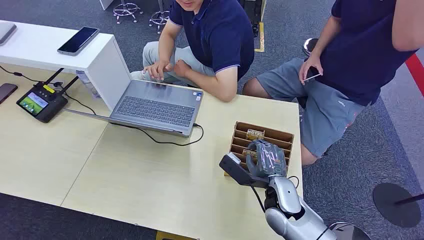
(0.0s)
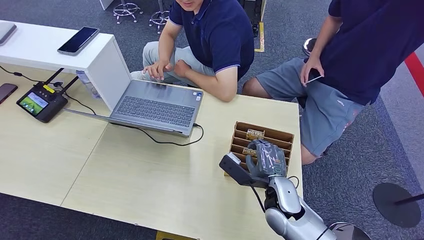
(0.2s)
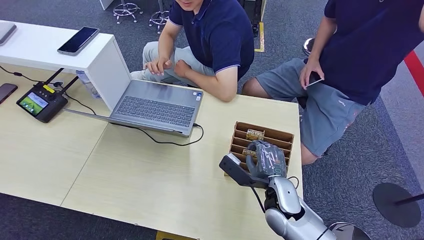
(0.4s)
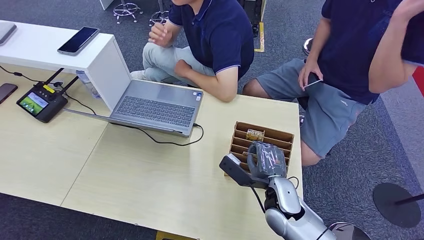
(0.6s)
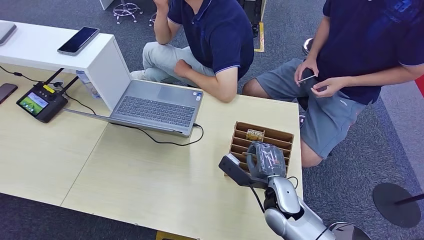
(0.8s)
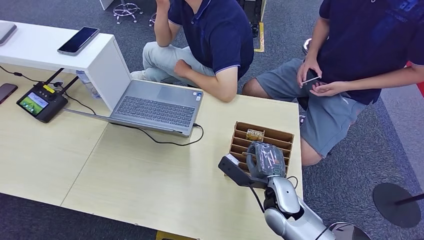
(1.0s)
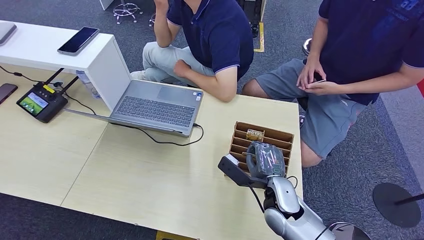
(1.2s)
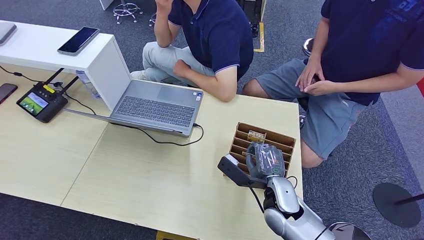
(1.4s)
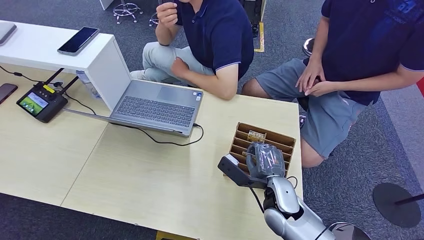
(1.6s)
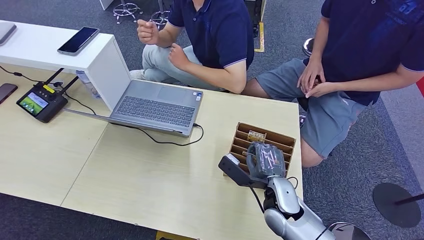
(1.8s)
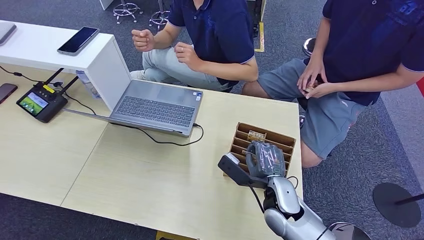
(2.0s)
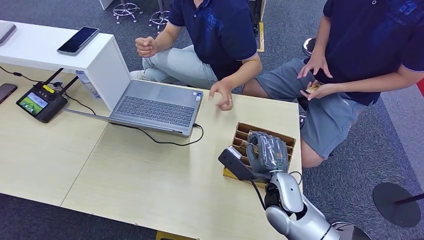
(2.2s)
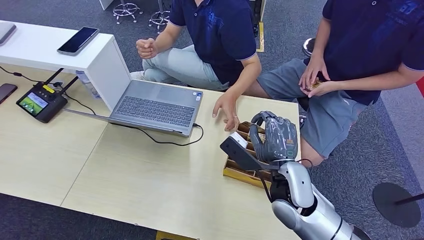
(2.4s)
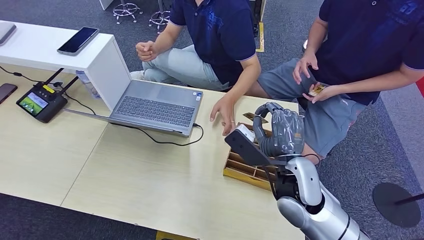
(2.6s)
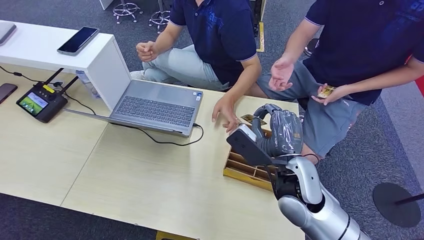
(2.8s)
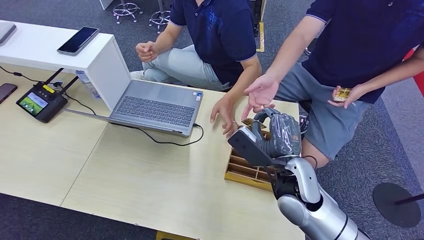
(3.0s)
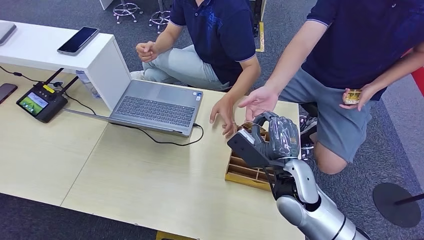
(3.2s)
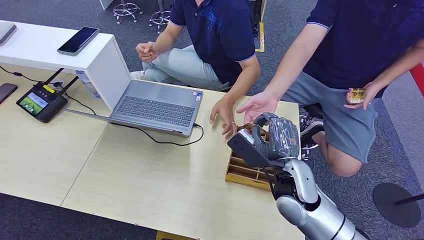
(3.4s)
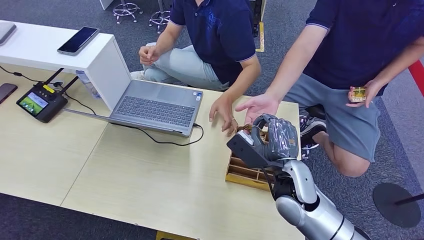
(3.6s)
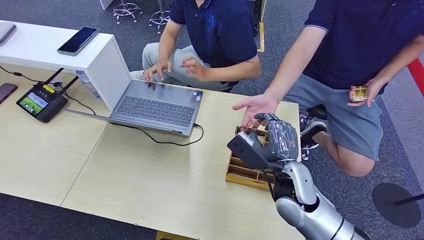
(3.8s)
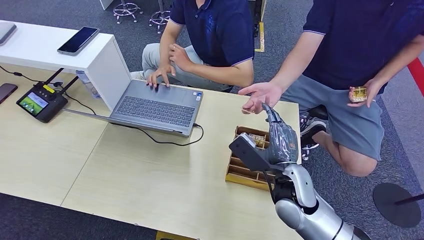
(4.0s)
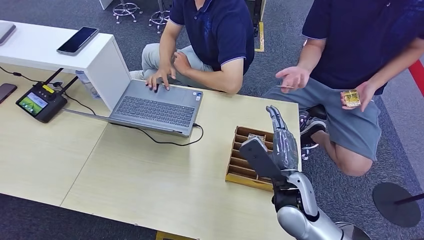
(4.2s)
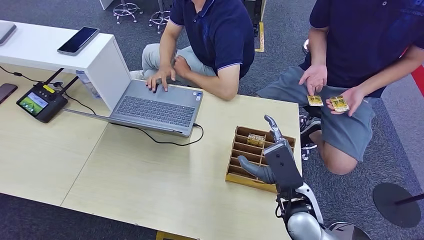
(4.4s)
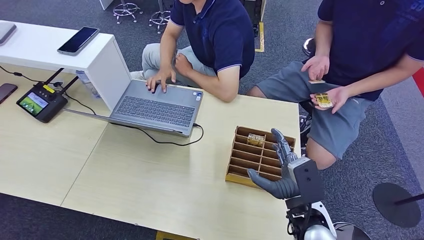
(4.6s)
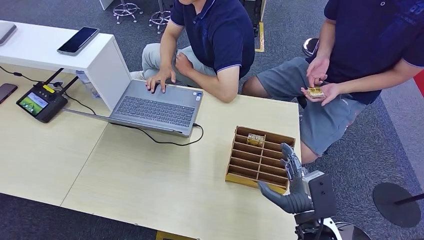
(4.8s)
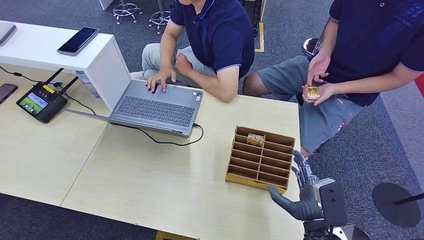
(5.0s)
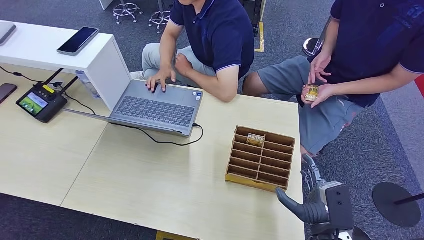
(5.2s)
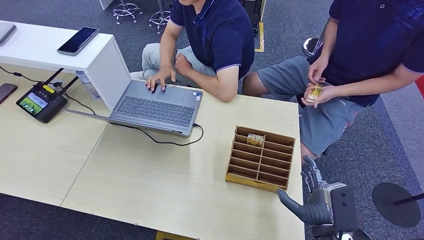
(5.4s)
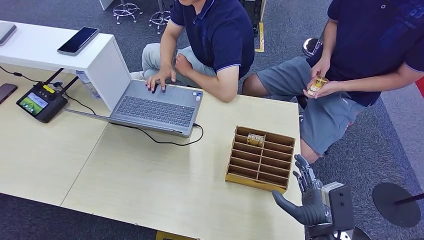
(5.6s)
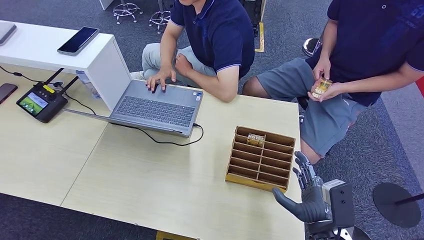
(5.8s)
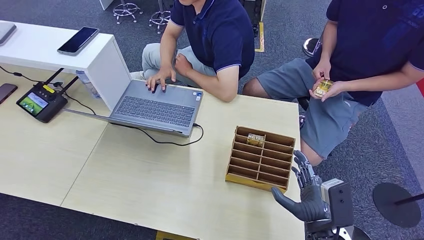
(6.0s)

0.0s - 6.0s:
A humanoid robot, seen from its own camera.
Step, 0.0s - 2.8s: Pick up the key card from the card box.
Step, 3.0s - 6.0s: Hand the key card to the target.
1.6s - 3.0s: The right hand travels upward by roughly 10 cm.
3.0s - 4.4s: The right hand changes place by approximately 5 cm.
4.4s - 6.0s: The right hand travels to the right and backward by approximately 10 cm.

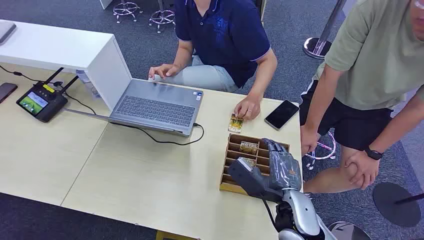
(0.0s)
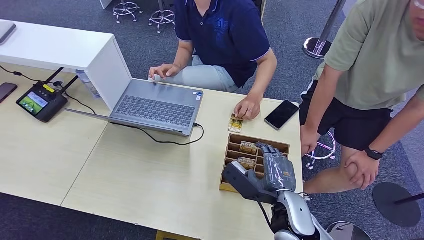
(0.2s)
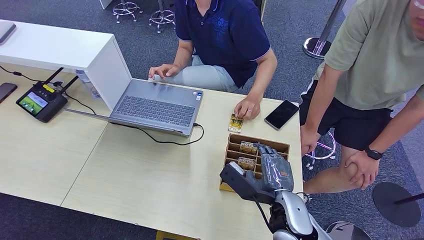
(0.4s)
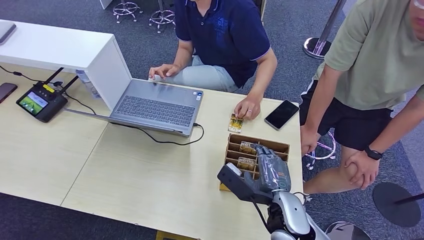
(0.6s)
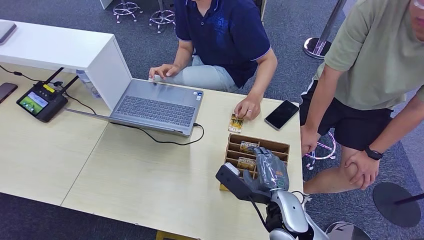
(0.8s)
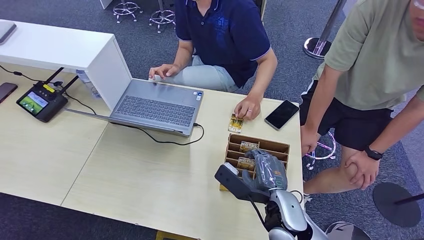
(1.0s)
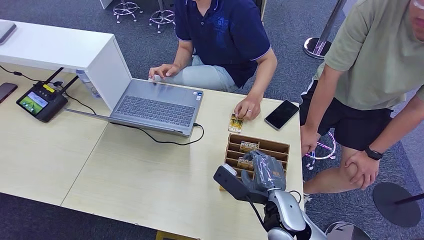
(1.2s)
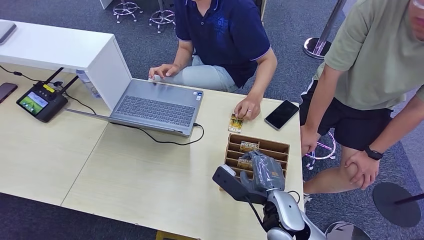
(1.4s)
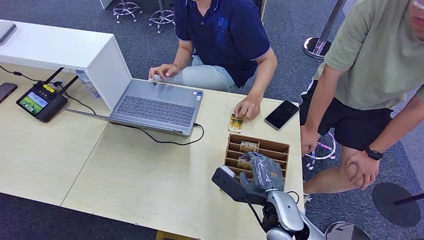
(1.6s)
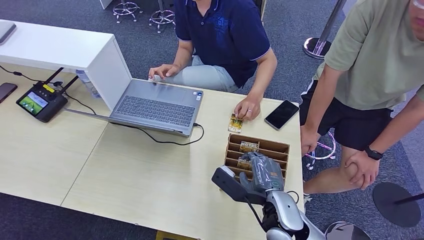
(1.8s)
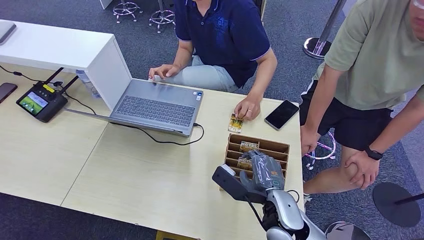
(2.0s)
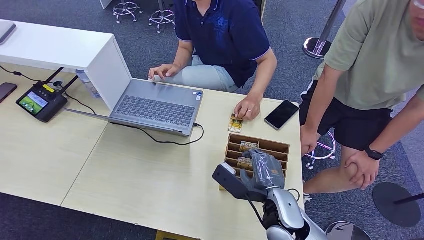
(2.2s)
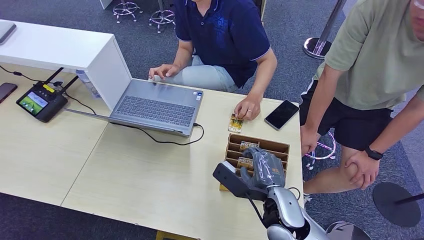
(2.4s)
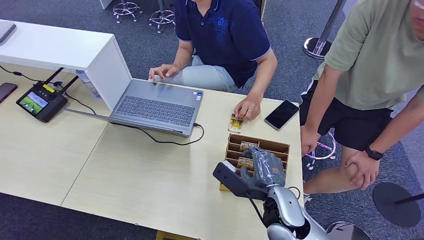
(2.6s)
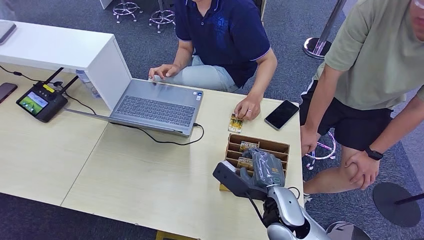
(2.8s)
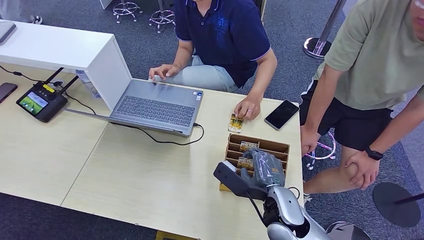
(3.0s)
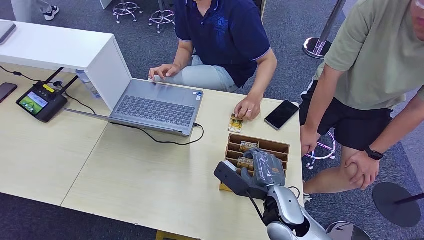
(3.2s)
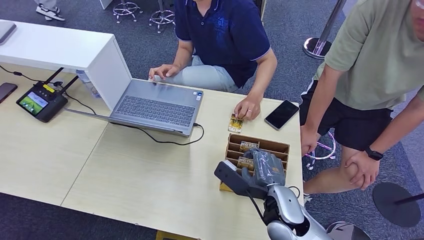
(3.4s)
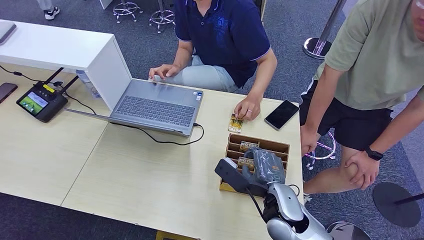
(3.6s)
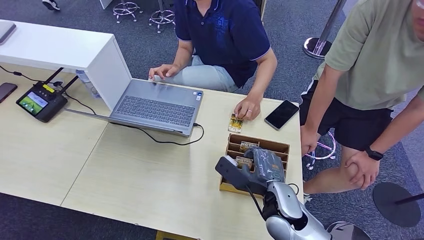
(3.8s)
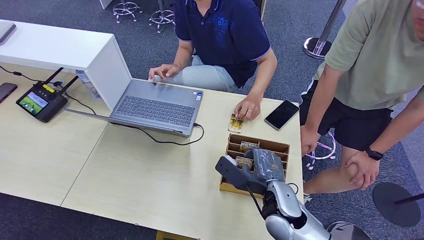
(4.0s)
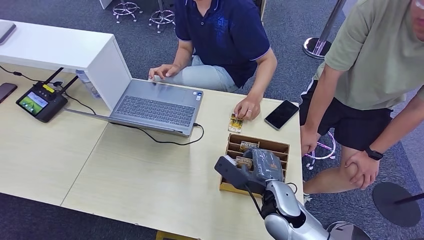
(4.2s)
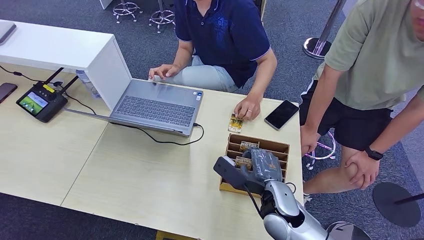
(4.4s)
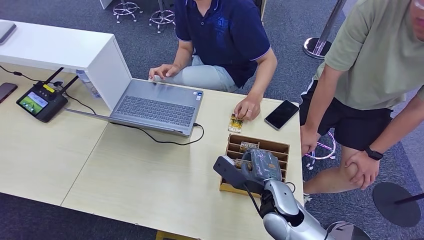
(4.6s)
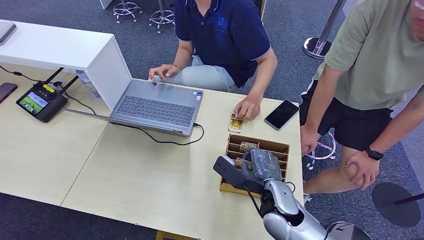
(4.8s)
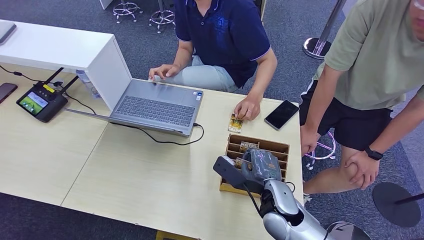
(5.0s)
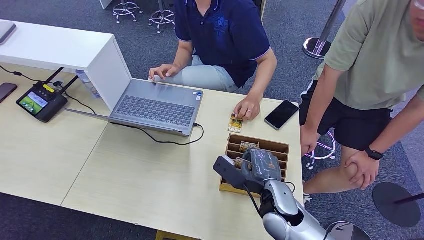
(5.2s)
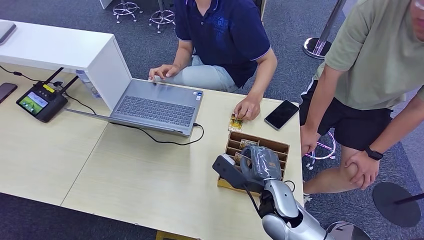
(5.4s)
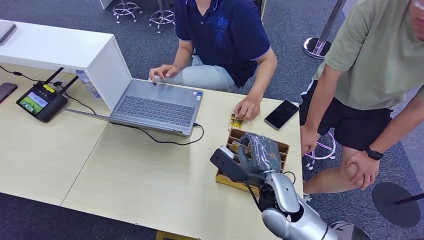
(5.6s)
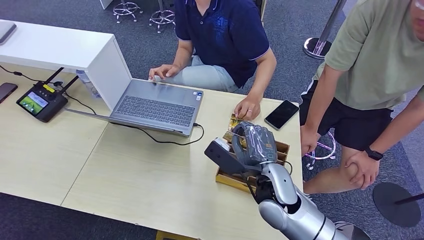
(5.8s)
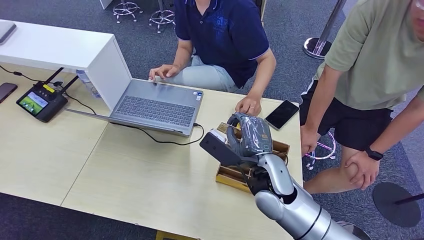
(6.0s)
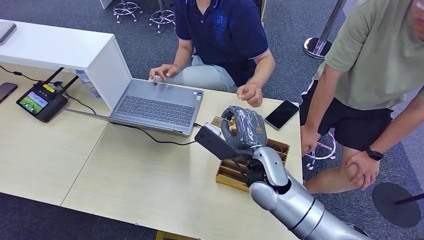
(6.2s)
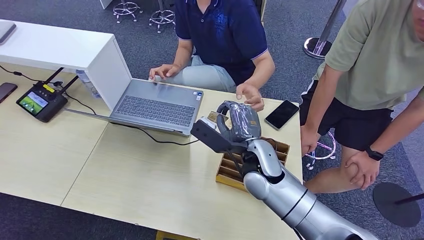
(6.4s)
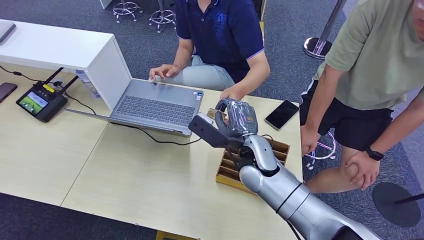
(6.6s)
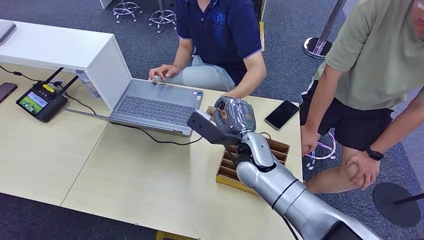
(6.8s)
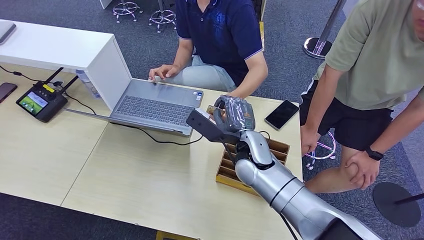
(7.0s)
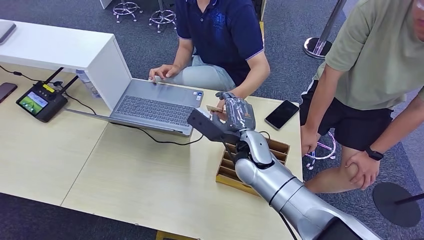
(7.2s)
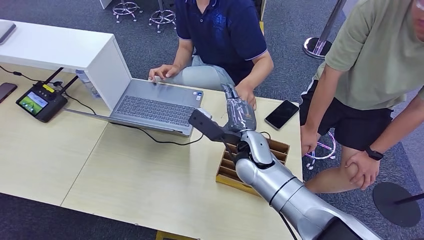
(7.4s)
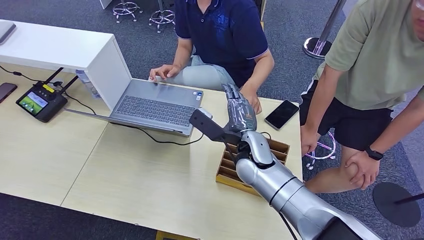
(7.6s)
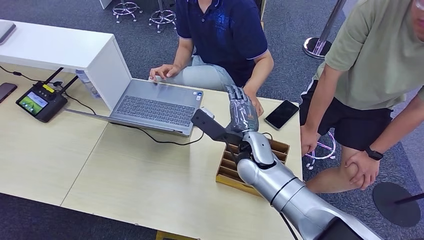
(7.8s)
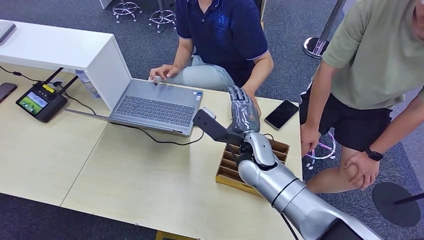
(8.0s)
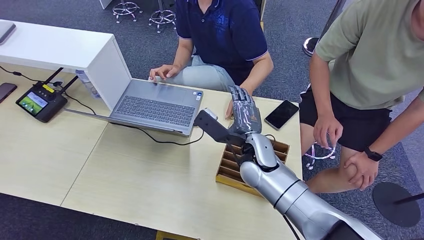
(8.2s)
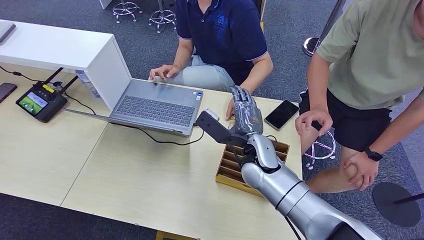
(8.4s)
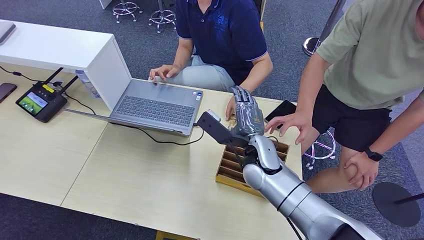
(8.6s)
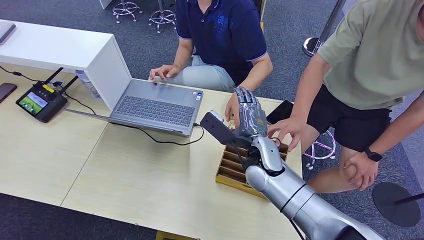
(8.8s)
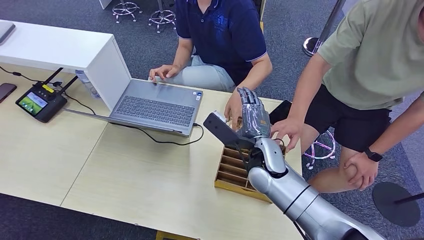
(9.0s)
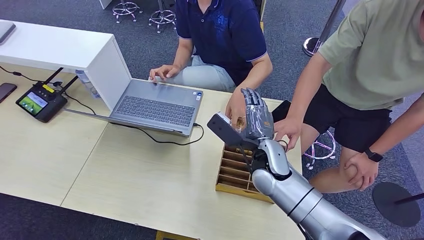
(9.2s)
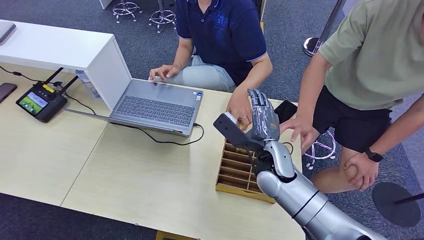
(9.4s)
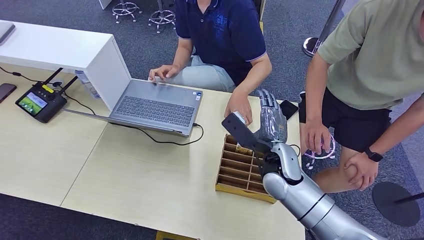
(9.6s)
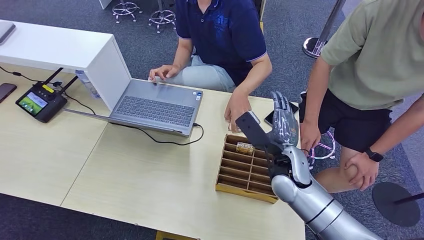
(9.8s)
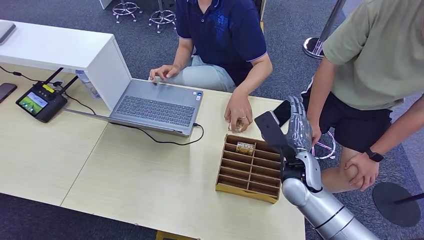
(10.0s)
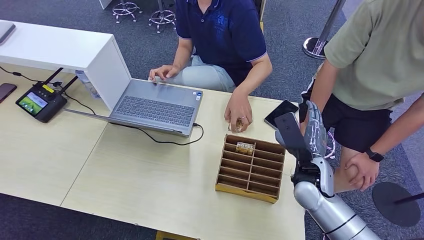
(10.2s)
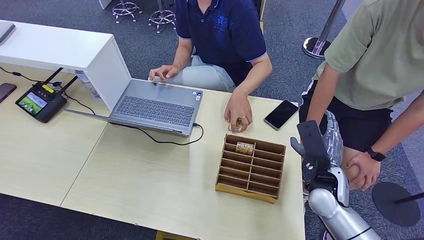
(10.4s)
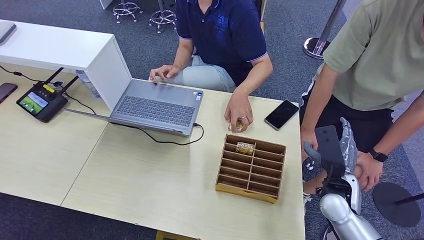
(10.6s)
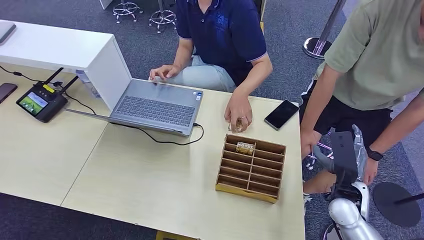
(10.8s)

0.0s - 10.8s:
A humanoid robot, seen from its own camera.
Step, 0.0s - 5.6s: Pick up the key card from the card box.
Step, 6.0s - 10.6s: Hand the key card to the target.
1.6s - 3.0s: Neither hand changes place.
3.0s - 4.6s: The hands stay close to where they were, moving slightly.
4.6s - 6.2s: The right hand travels upward by some 5 cm.
6.2s - 7.8s: The right hand heads forward, covering some 5 cm.
7.8s - 9.2s: The hands move only a little.
9.2s - 10.8s: The right hand moves to the right, approximately 20 cm.
